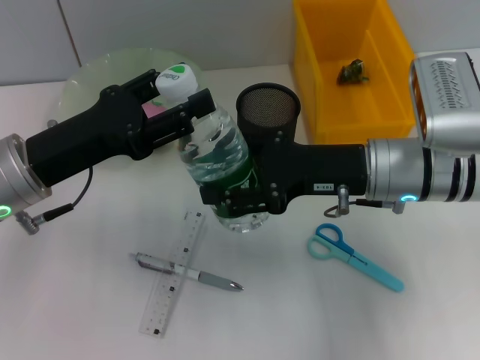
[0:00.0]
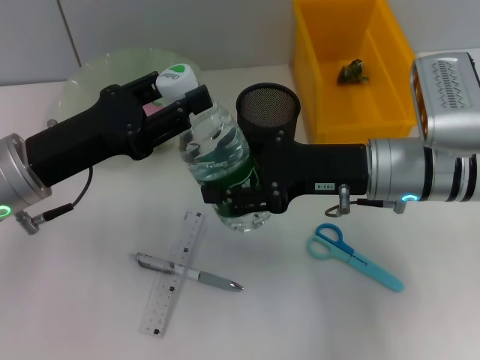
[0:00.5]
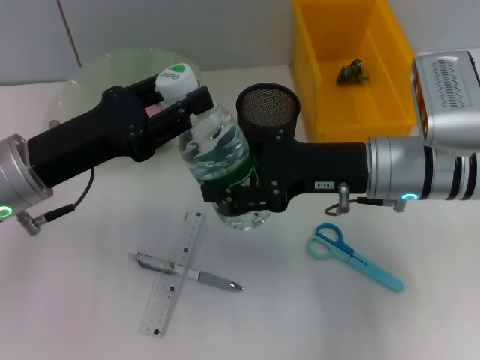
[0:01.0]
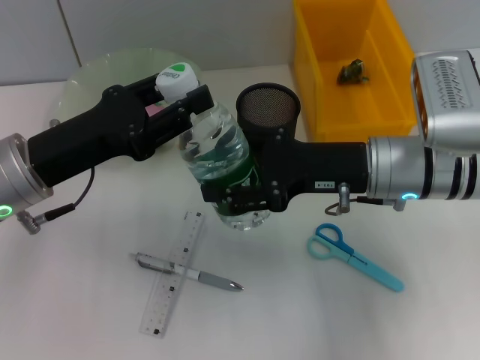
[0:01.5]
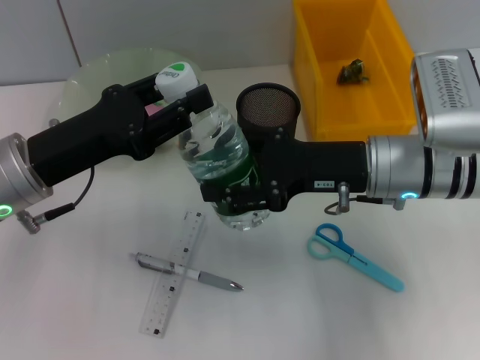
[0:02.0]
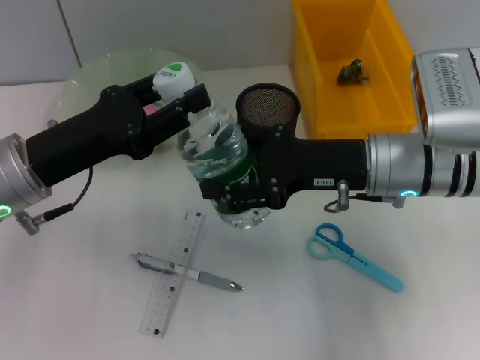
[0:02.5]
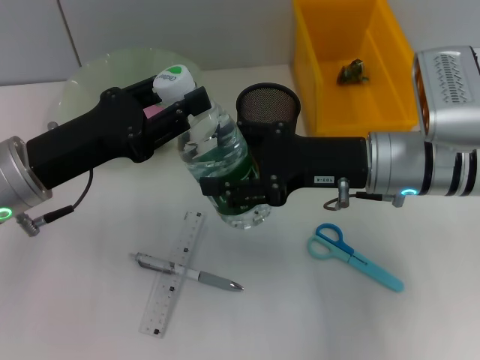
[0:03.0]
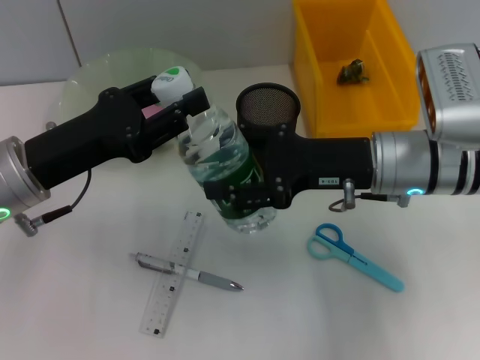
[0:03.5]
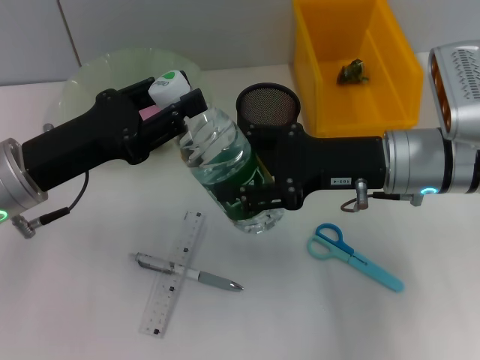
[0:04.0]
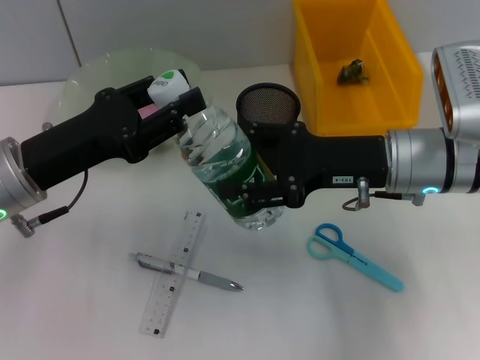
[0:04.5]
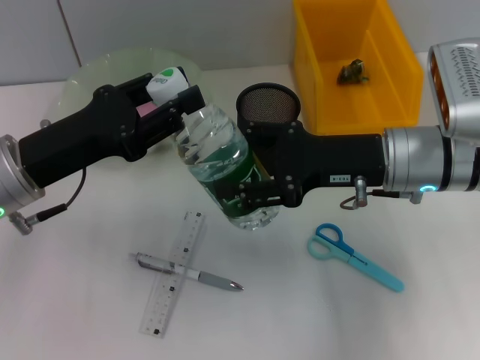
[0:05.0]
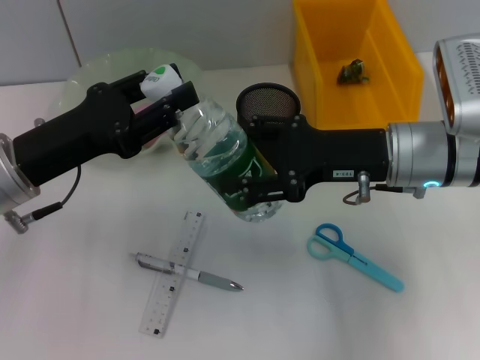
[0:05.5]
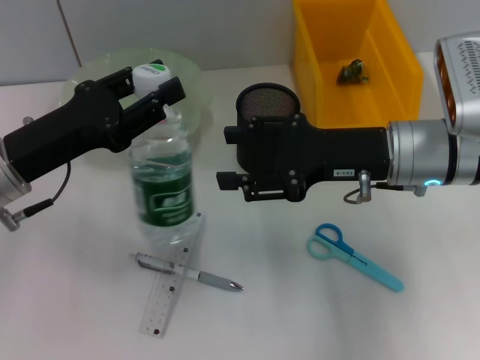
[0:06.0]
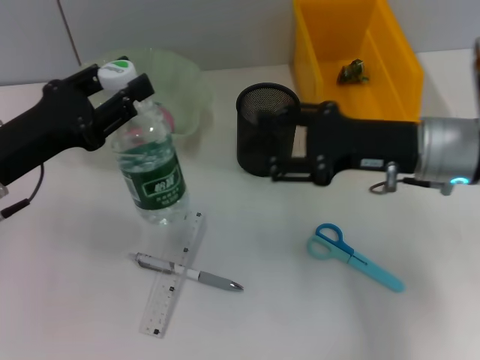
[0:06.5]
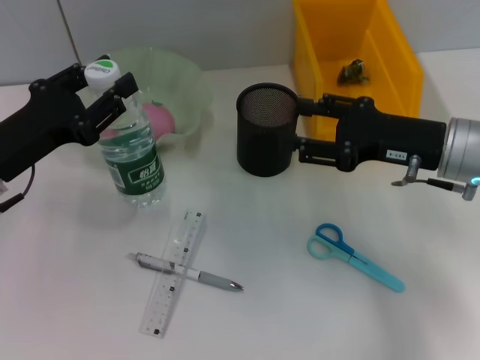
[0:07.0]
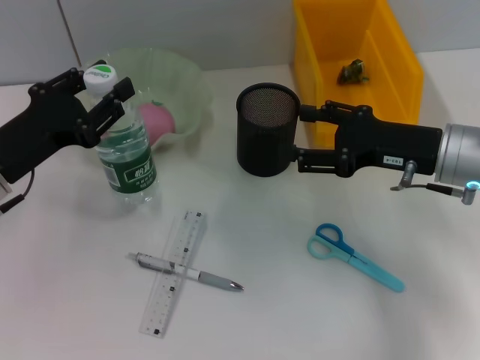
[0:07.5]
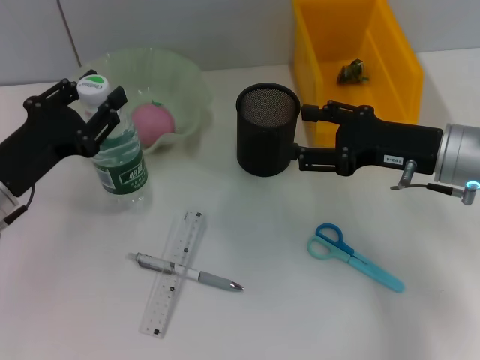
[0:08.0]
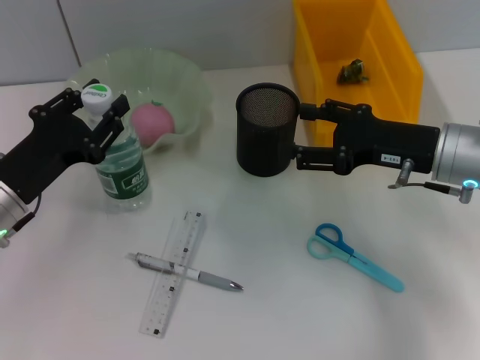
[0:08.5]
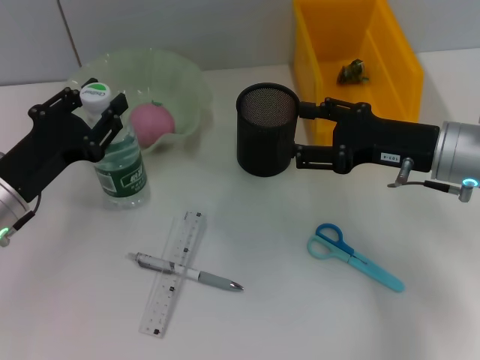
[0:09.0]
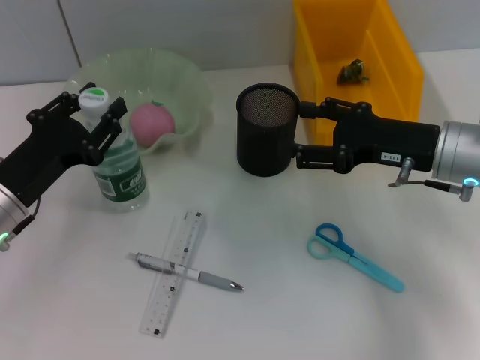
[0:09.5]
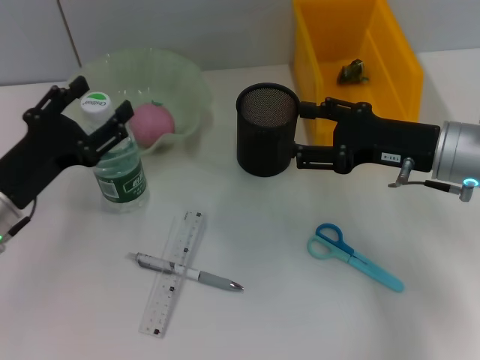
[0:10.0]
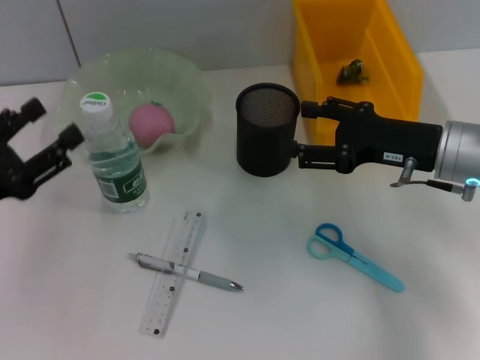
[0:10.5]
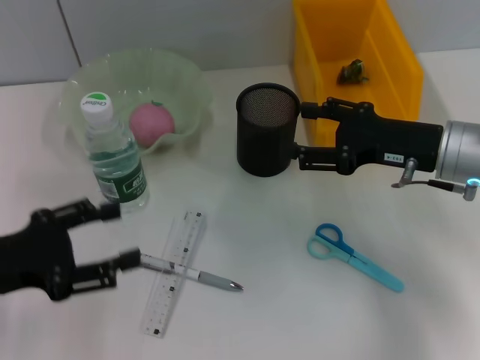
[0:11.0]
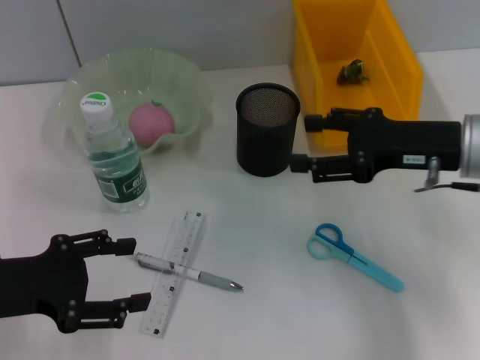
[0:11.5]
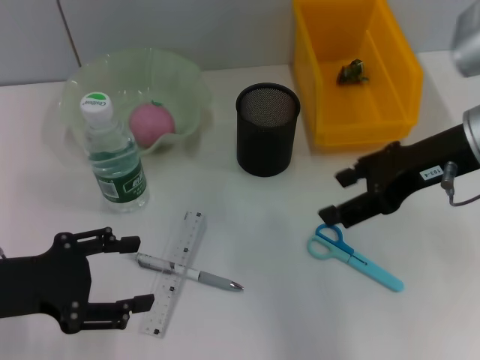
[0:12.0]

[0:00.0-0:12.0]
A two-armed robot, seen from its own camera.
Step, 0:00.0 to 0:06.0: Pass the water bottle from the right hand to the left hand.
Step, 0:06.5 to 0:10.0: Place the water bottle on the table with the left hand.
0:00.0 to 0:02.0: The left gripper closes its fingers.
0:02.0 to 0:04.0: The grippers stay close to where they were, moving slightly.
0:04.0 to 0:06.0: The two grippers keep their place.
0:06.0 to 0:08.0: The left gripper changes place by approximately 5 cm. Meanwhile the right gripper shifts some 5 cm to the right.
0:08.0 to 0:10.0: The left gripper opens.
0:10.0 to 0:12.0: The left gripper moves backward, about 5 cm. The right gripper travels upward by some 10 cm.

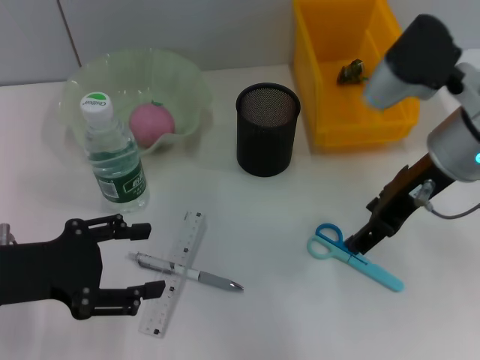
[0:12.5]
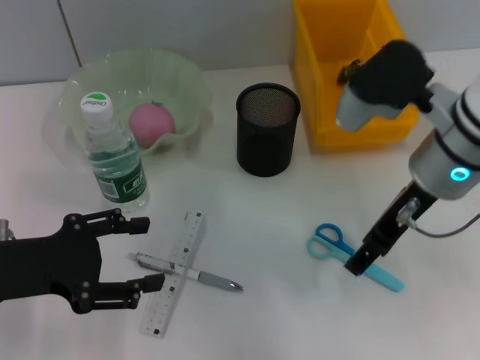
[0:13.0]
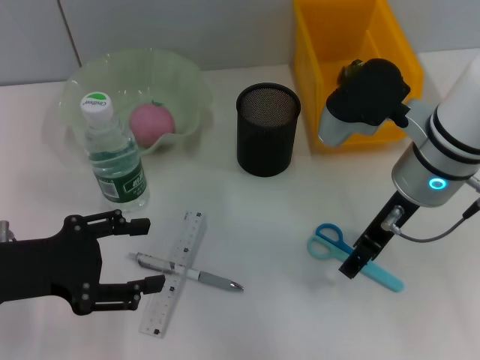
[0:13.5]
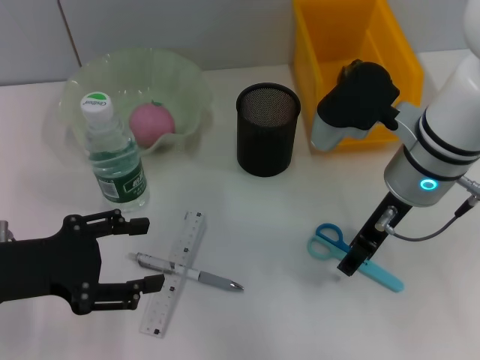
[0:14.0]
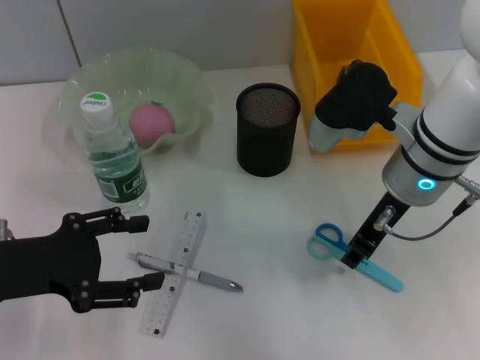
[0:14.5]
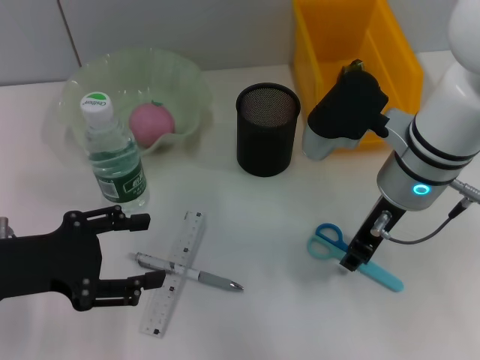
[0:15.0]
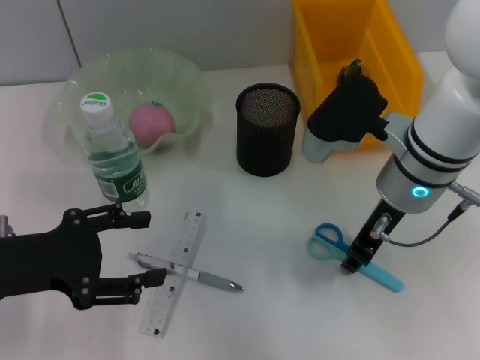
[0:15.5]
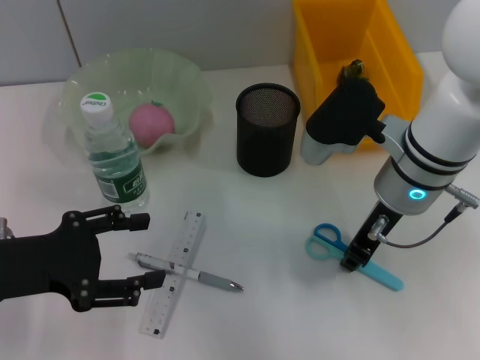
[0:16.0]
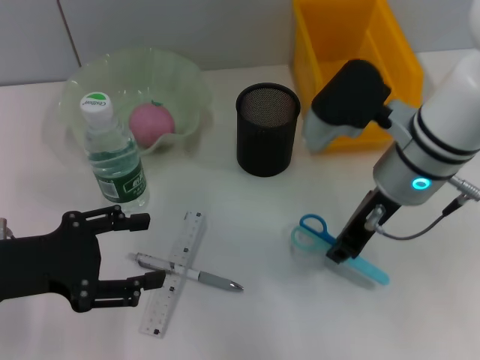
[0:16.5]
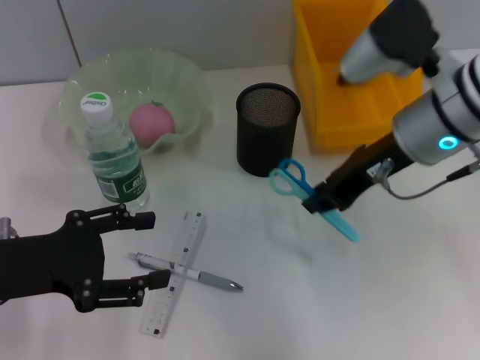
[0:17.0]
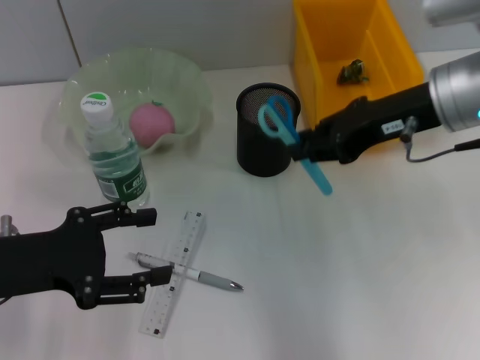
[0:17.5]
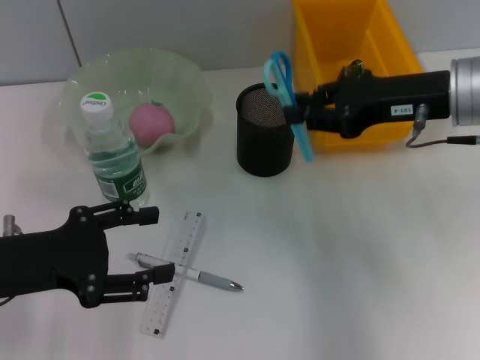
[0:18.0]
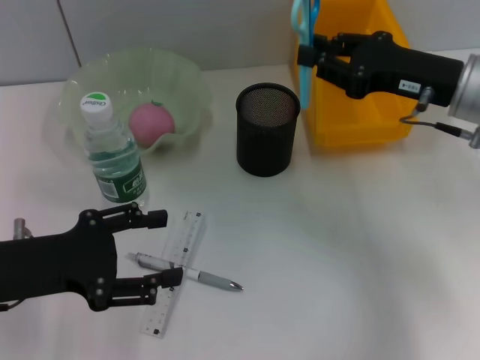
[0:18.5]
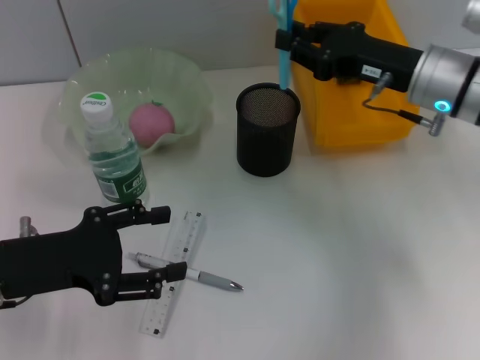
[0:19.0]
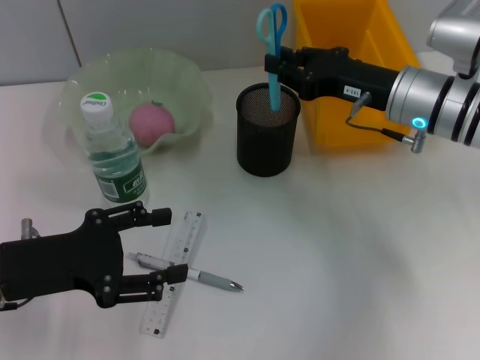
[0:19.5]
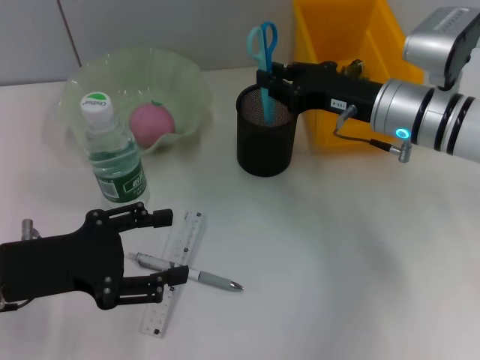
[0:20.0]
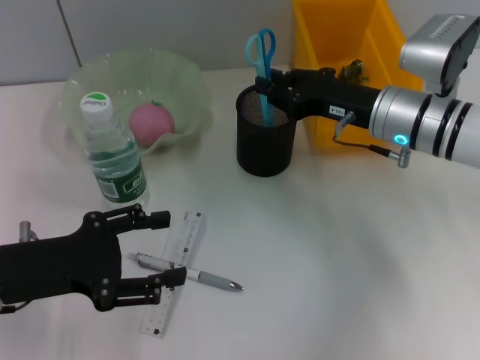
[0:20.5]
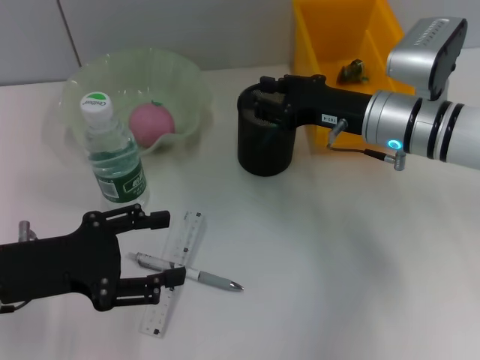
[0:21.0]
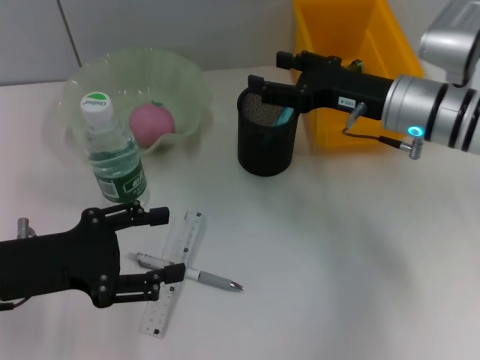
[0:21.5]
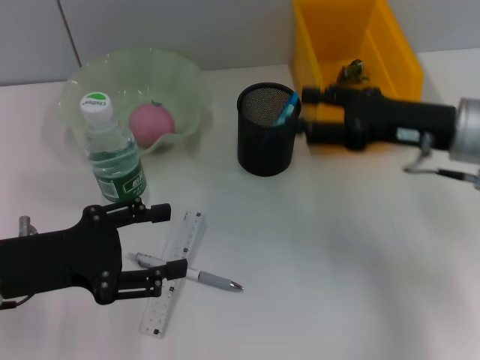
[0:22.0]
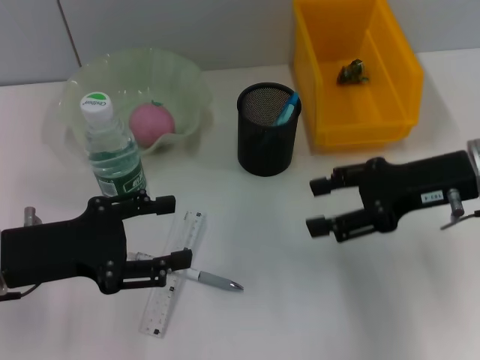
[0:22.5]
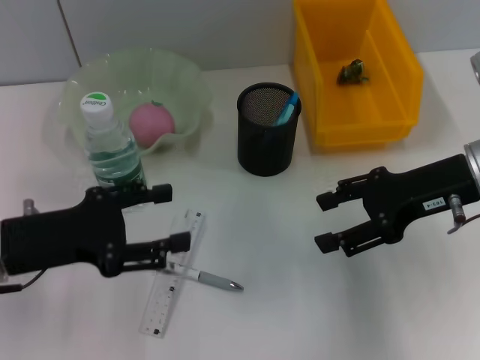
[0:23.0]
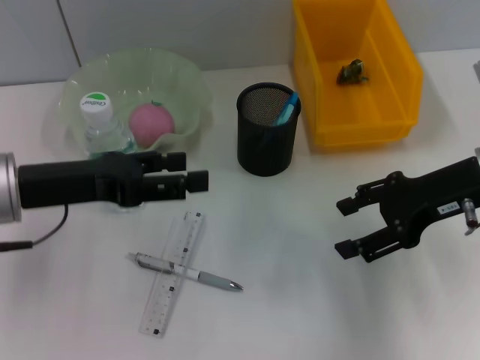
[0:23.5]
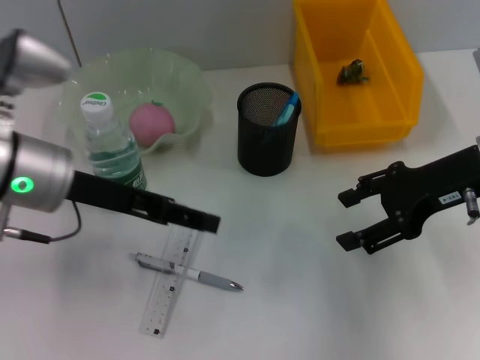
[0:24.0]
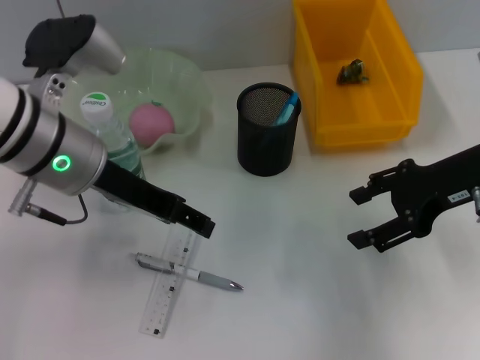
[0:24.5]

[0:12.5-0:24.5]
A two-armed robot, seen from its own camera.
Step, 0:12.5 to 0:16.0: Grab the blue scissors with the right hand.
Step, 0:16.5 to 0:21.0: Place the blue scissors into the pen holder with the right hand.
0:12.5 to 0:14.5: The right gripper changes place by some 5 cm, and closes its fingers.
0:14.5 to 0:16.5: The grippers make only small movements.
0:16.5 to 0:18.5: The right gripper heads to the right, covering roughly 10 cm.
0:18.5 to 0:20.5: The right gripper heads downward and to the left, covering about 5 cm.
0:20.5 to 0:22.5: The right gripper travels backward and to the right by some 10 cm, and opens.
0:22.5 to 0:24.5: The left gripper heads to the right, forward and upward, covering some 15 cm.

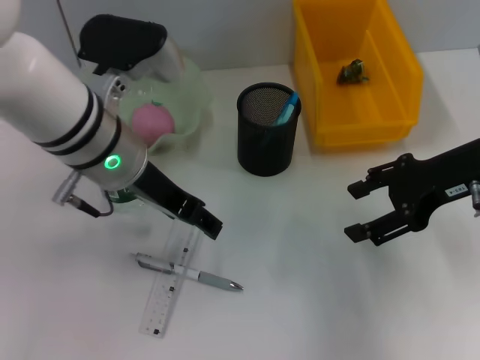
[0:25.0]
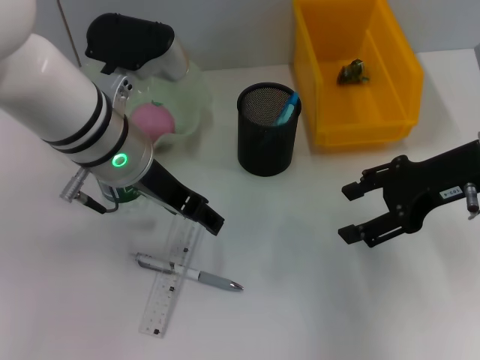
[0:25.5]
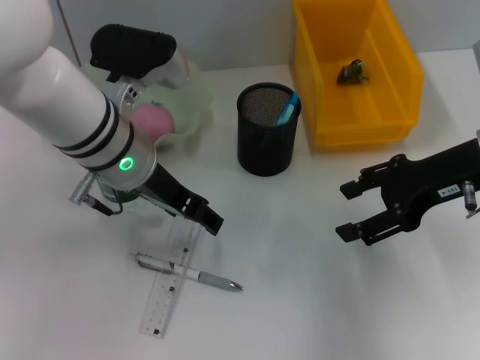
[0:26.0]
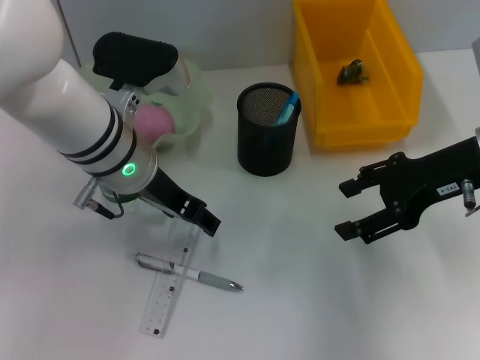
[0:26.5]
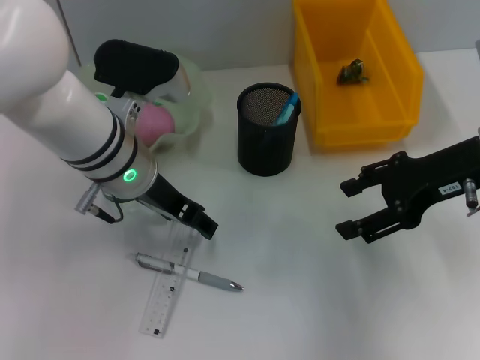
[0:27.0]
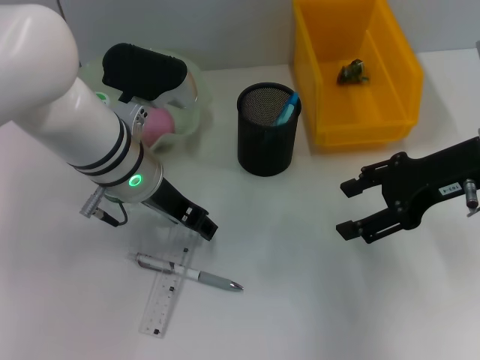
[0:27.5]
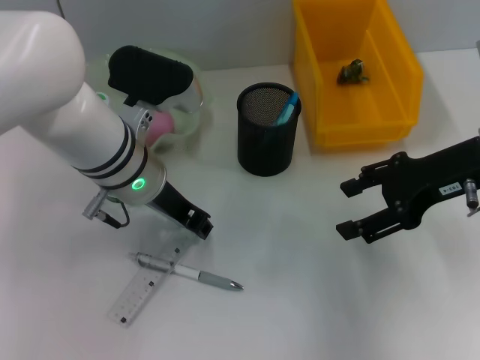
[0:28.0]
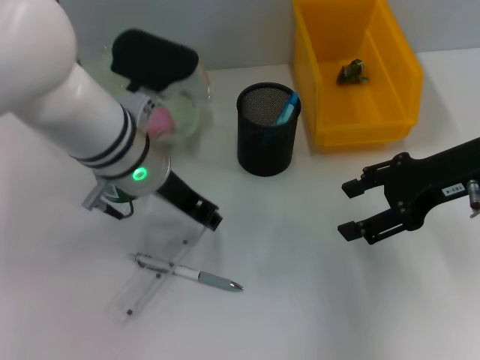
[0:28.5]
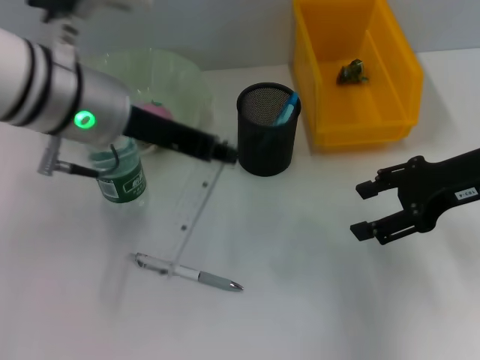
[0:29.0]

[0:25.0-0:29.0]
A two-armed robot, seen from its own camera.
Step, 0:25.0 to 0:28.0: Grab the ruler with the left hand.
0:25.0 to 0:27.0: The grippers make only small movements.
0:27.0 to 0:29.0: The left gripper is displaced upward by approximately 10 cm, and closes.
